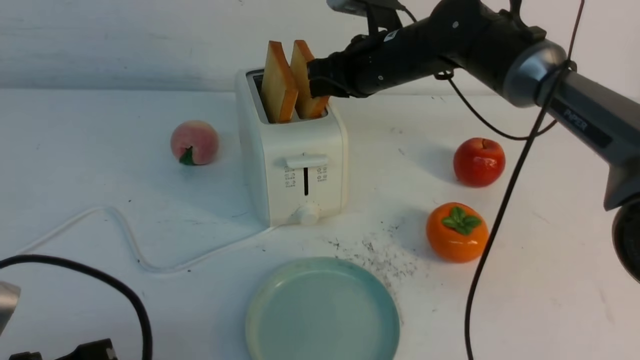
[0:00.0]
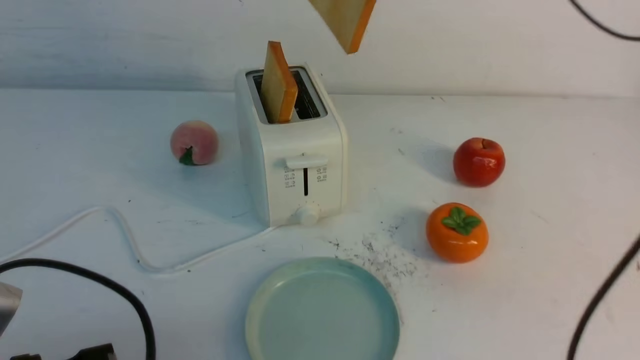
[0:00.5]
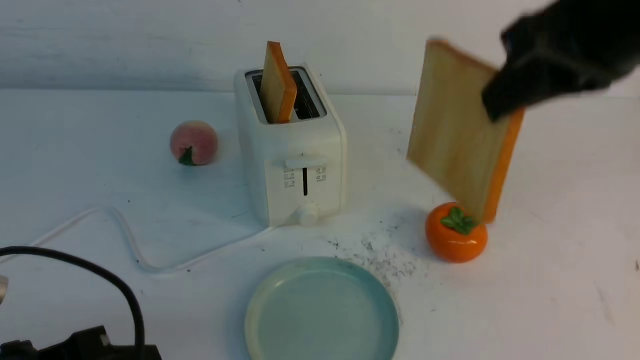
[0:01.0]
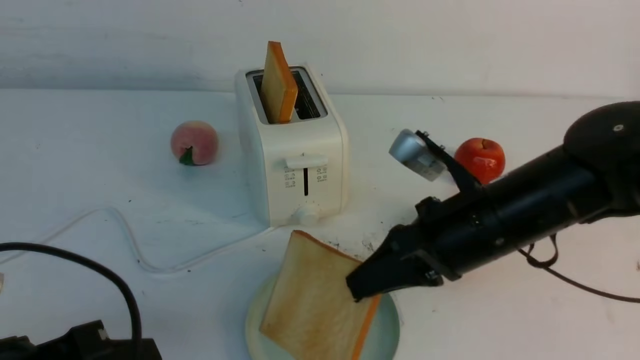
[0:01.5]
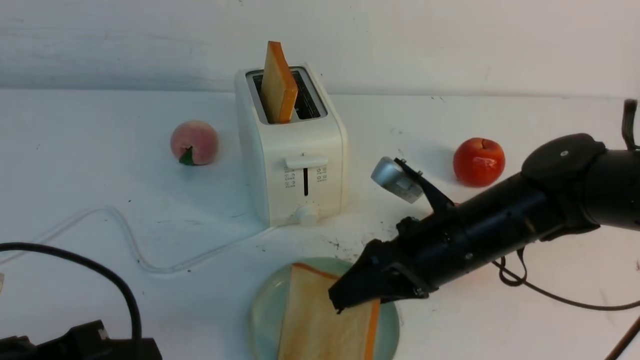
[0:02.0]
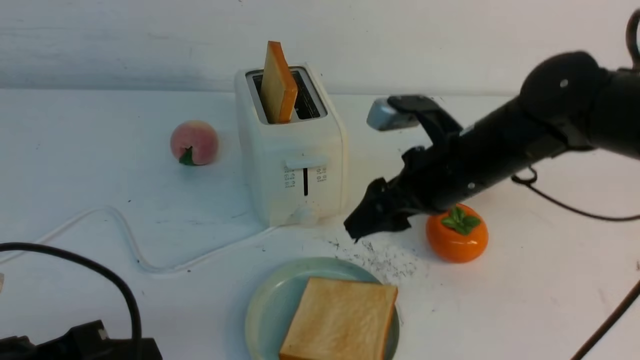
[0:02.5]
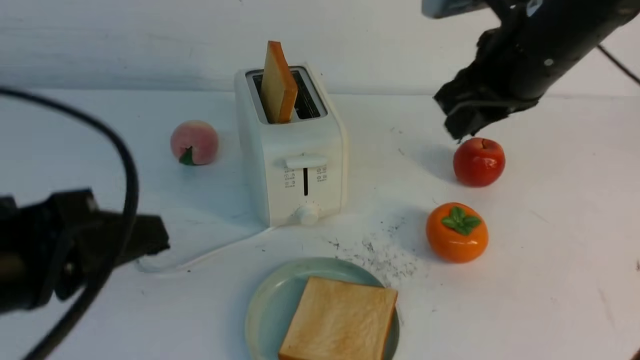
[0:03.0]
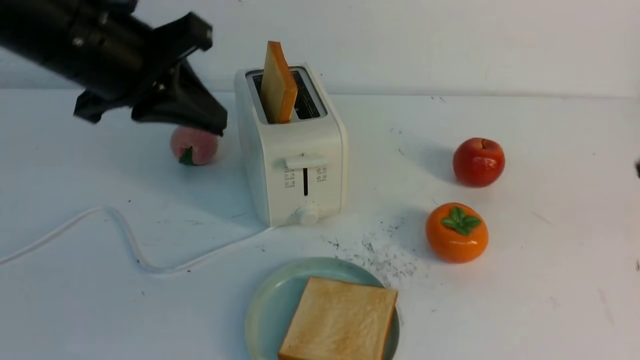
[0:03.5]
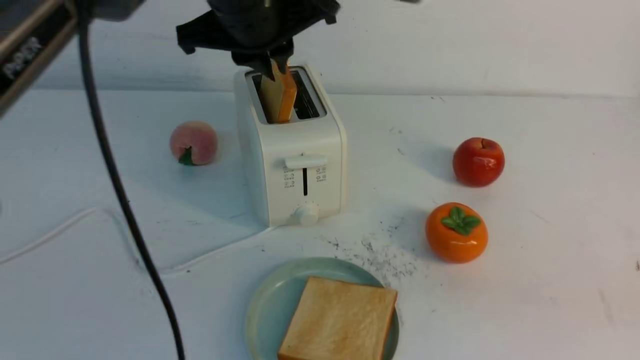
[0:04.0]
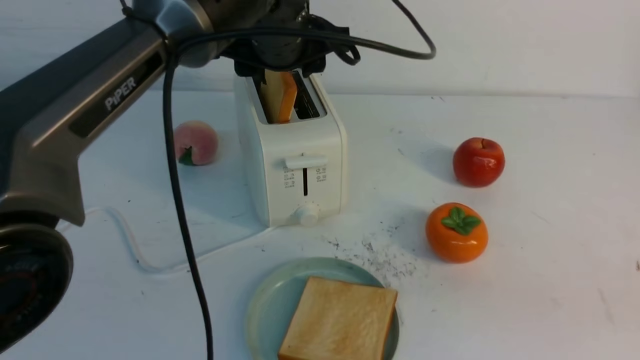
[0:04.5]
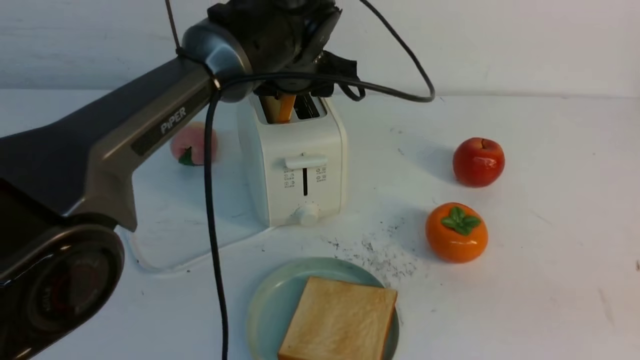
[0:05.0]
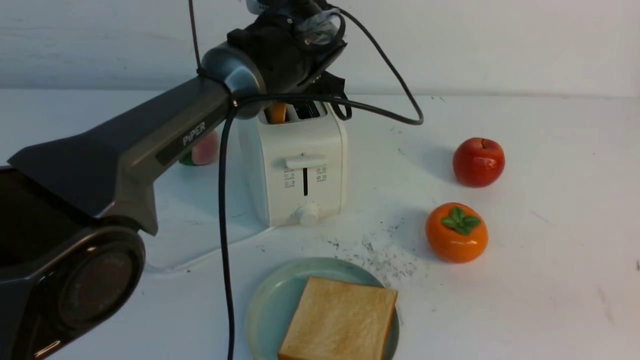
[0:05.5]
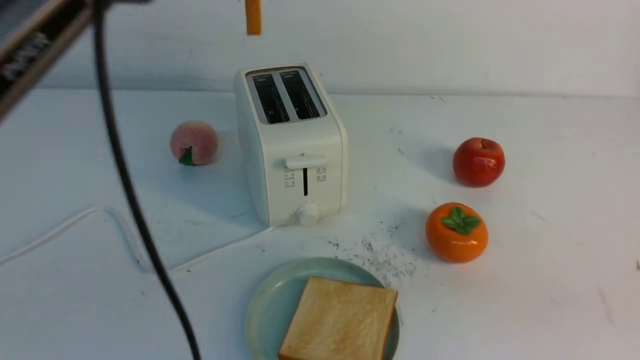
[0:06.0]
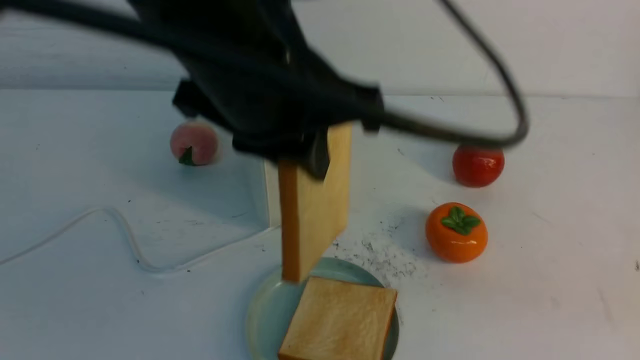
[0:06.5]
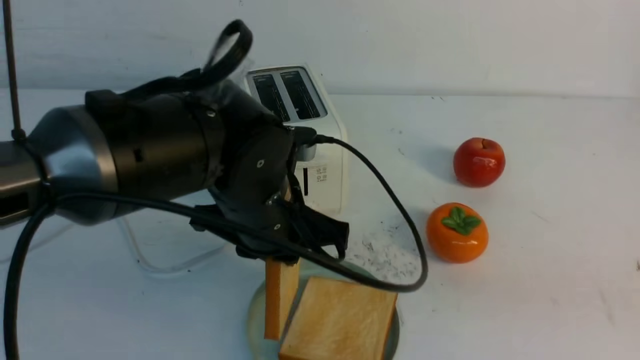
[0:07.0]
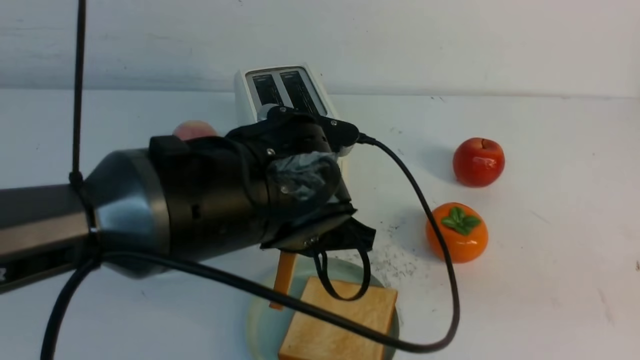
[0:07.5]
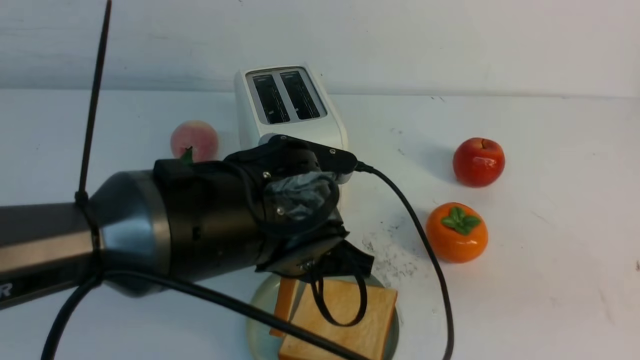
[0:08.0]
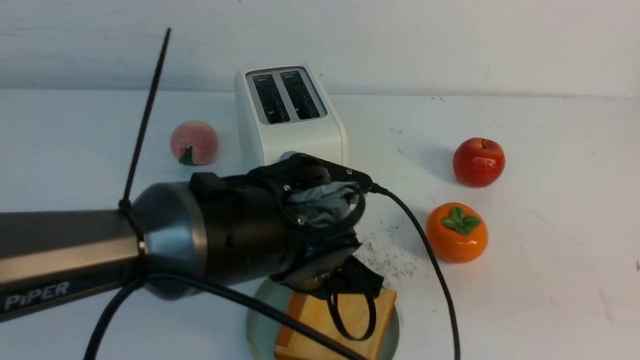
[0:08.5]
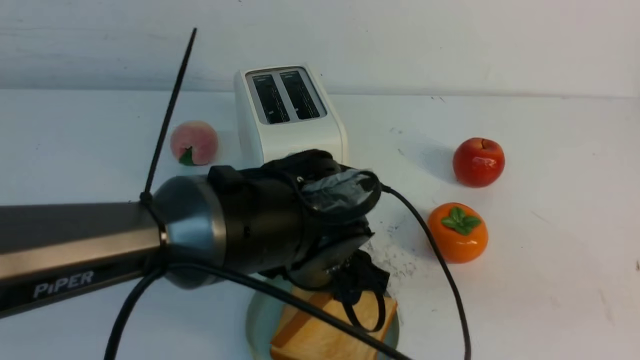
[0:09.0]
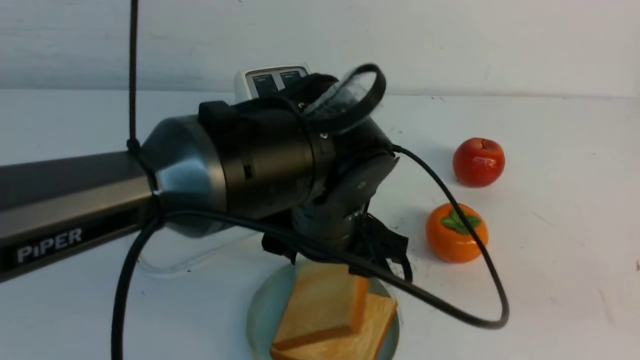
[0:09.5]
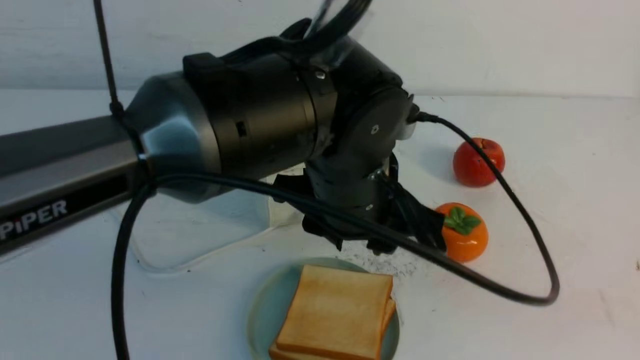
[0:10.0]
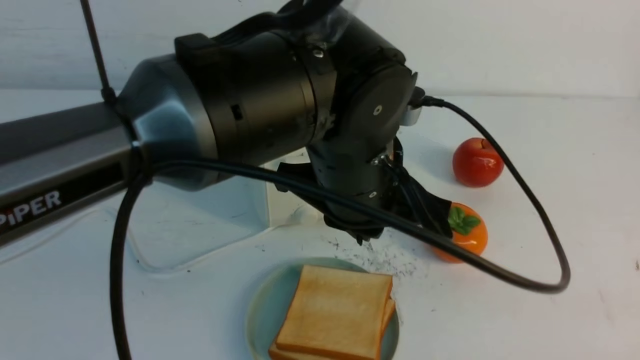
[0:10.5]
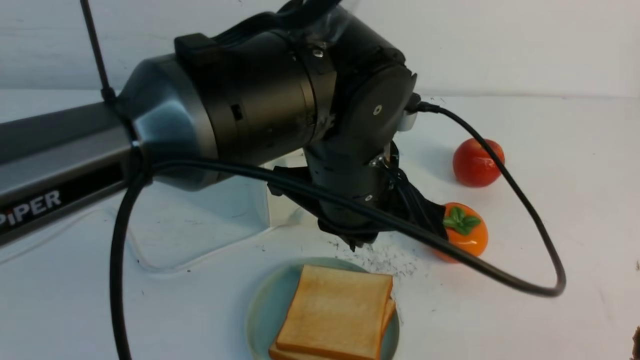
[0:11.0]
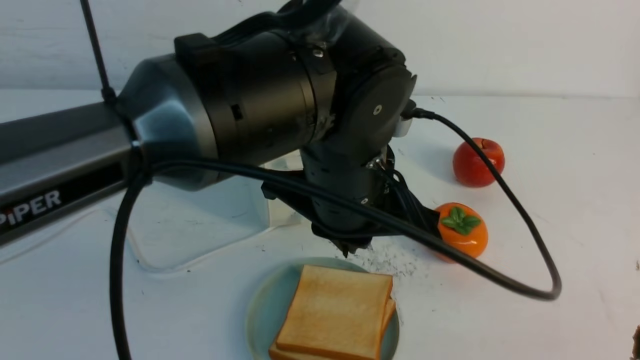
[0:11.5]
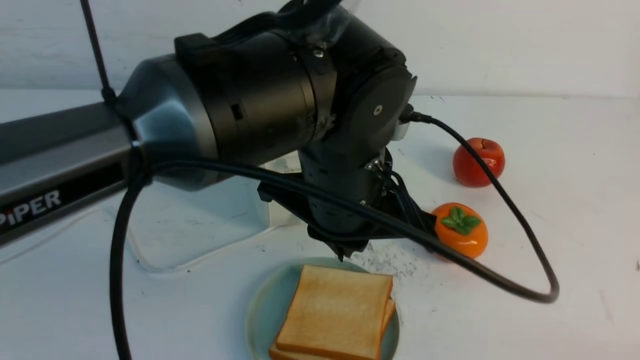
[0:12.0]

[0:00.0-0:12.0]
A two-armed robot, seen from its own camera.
Task of the whole recording: take toasted bread from bread machine on white table place on plate.
Step, 0:00.5 to 0:02.0: use the right arm to put a slice of bread into the plate.
Step, 0:02.5 to 0:05.5: use the left arm to take out a slice of bread.
Step, 0:06.0 to 0:09.5: use the left arm to put a slice of bread into the empty plate.
0:00.0 to 0:02.0: The right gripper shifts approximately 20 cm backward and downward, and opens up.
0:02.0 to 0:04.0: The left gripper shifts about 35 cm forward, upward and to the right, while the right gripper shifts about 30 cm backward, to the right and upward, and closes its fingers.
0:04.0 to 0:06.0: The left gripper moves upward, approximately 10 cm, and opens, then closes once more.
0:06.0 to 0:08.0: The left gripper shifts roughly 25 cm downward and backward.
0:08.0 to 0:10.0: The left gripper moves upward, some 5 cm, and opens, then closes again.
0:10.0 to 0:12.0: The right gripper travels downward by some 15 cm. Meanwhile the left gripper closes its fingers.

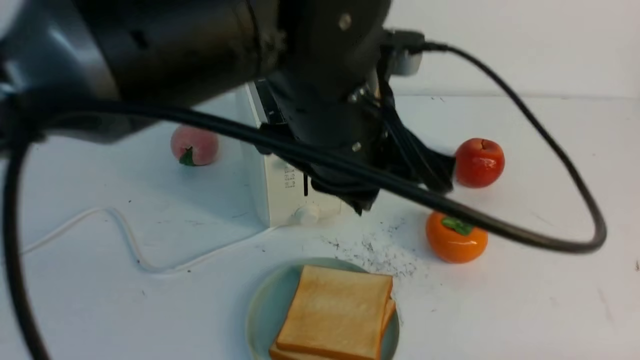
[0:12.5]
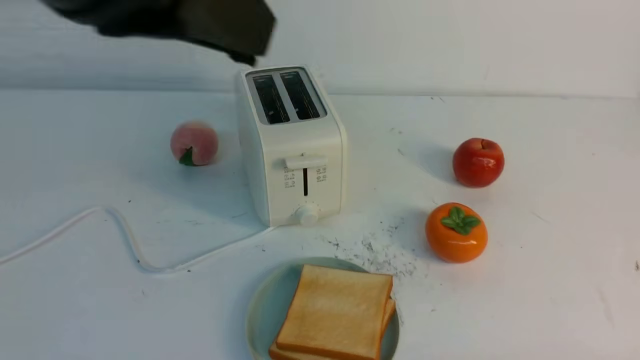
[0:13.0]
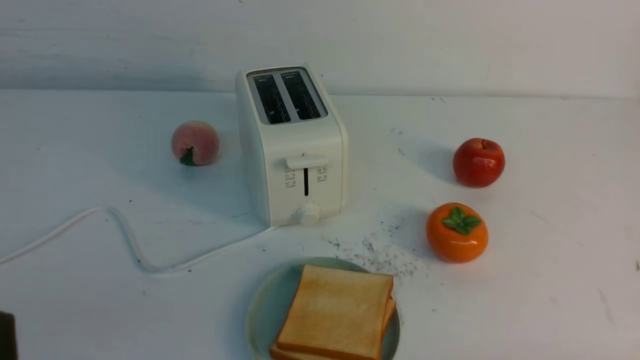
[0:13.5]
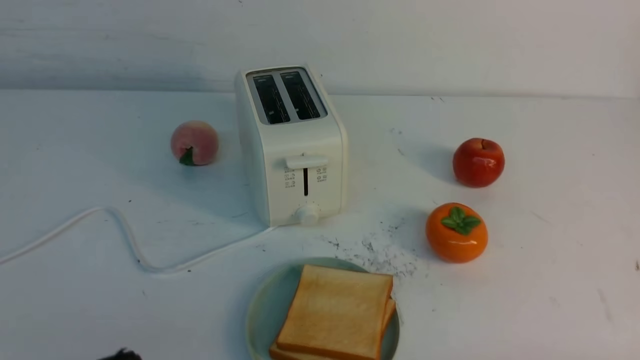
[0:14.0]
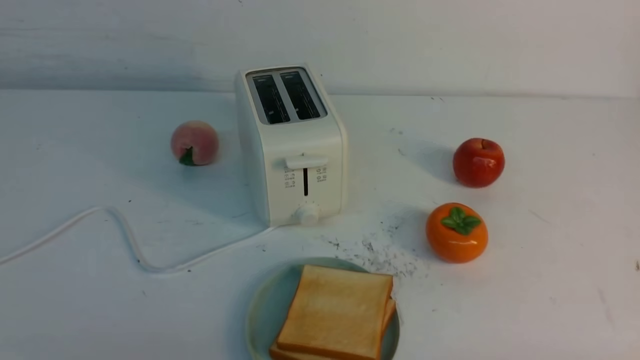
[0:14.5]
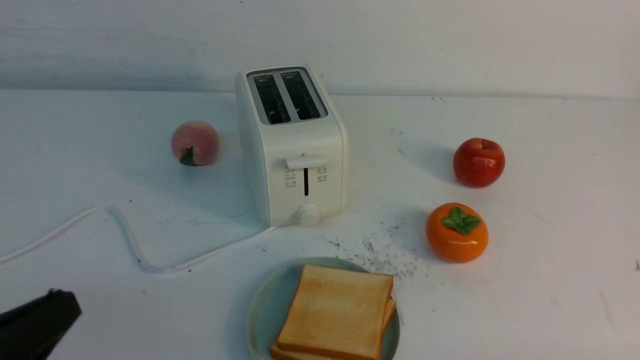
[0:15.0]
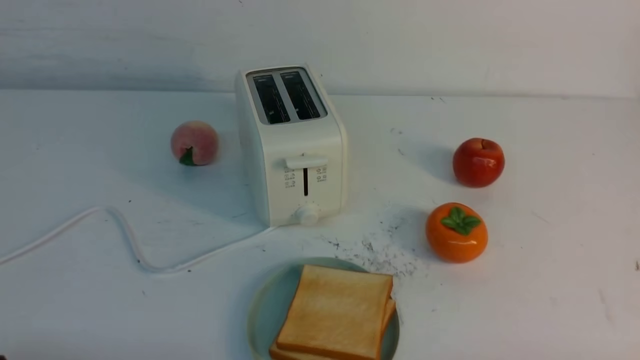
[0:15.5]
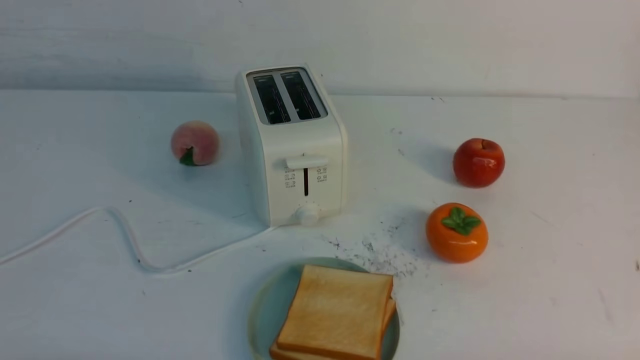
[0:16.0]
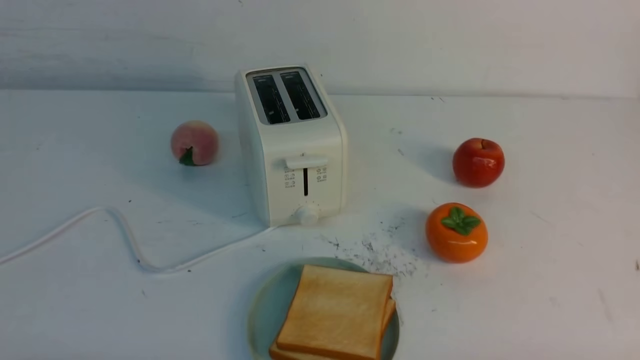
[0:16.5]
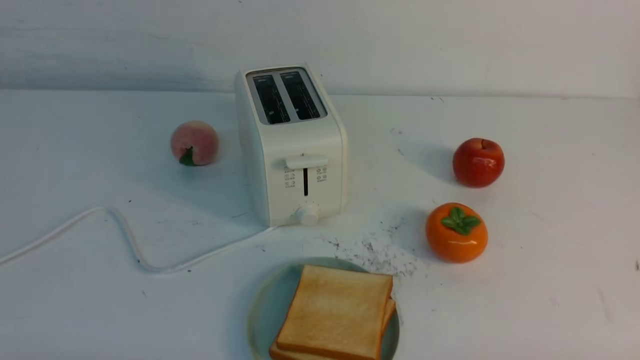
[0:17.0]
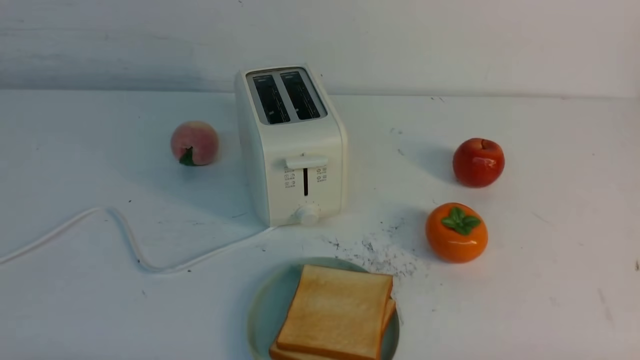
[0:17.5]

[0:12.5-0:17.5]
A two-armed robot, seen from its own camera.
Task of the whole recording: take toasted bread from bread machine on white table place on plate.
0:12.5 to 0:15.0: The left gripper shifts about 30 cm to the left, backward and downward.
0:15.0 to 0:17.5: The left gripper goes approximately 5 cm downward.
